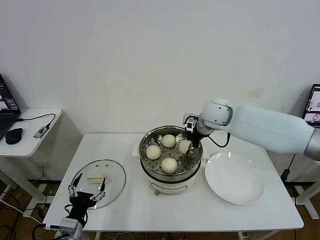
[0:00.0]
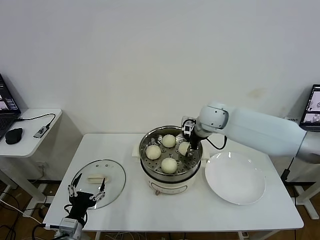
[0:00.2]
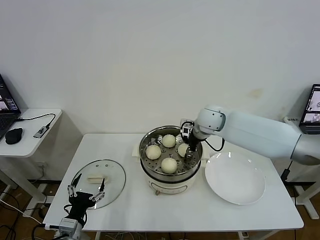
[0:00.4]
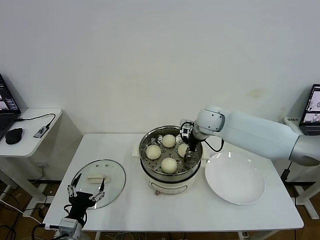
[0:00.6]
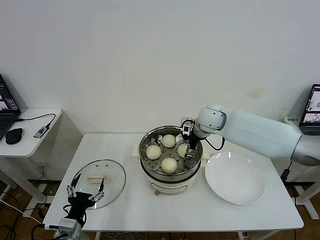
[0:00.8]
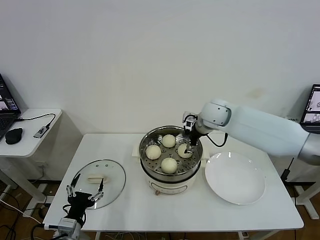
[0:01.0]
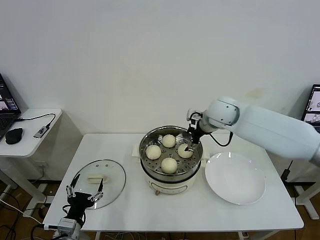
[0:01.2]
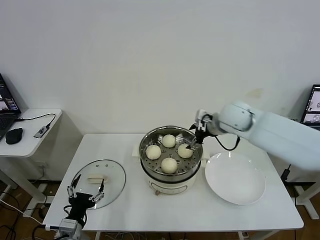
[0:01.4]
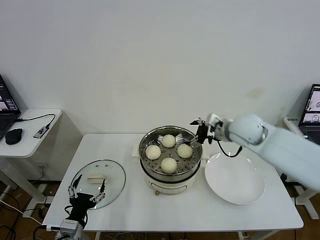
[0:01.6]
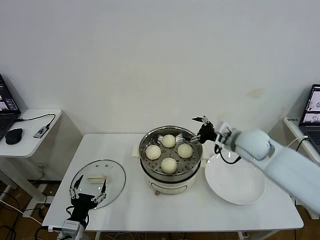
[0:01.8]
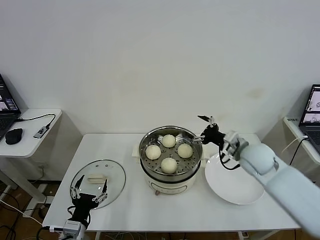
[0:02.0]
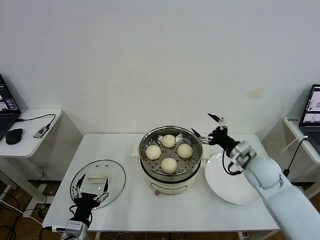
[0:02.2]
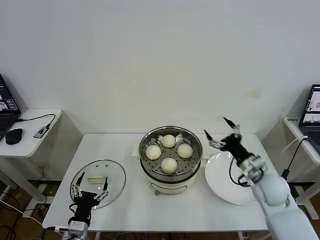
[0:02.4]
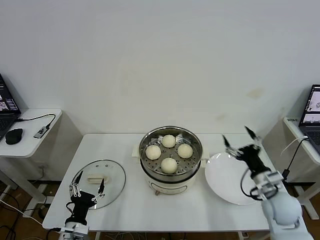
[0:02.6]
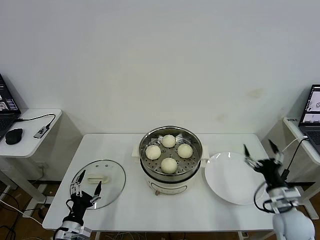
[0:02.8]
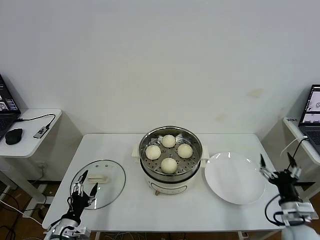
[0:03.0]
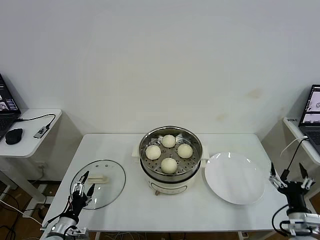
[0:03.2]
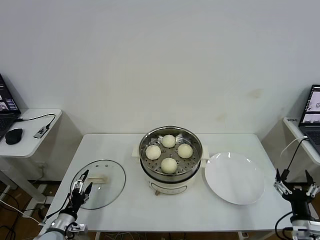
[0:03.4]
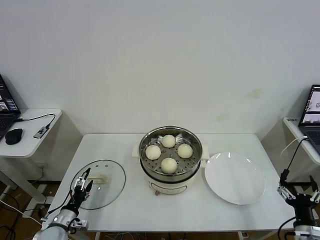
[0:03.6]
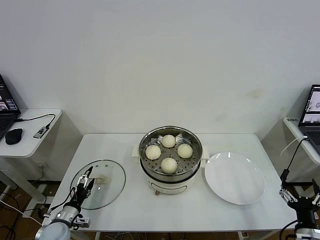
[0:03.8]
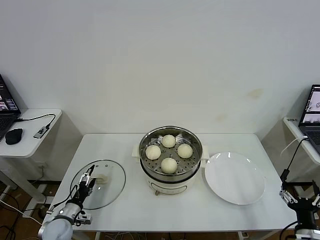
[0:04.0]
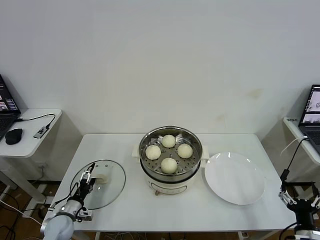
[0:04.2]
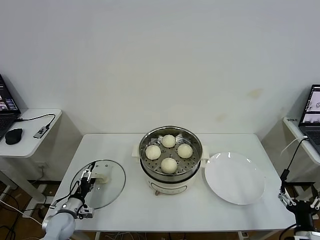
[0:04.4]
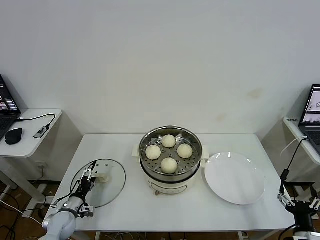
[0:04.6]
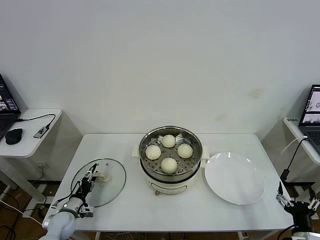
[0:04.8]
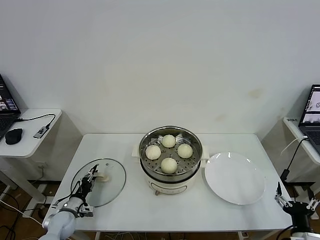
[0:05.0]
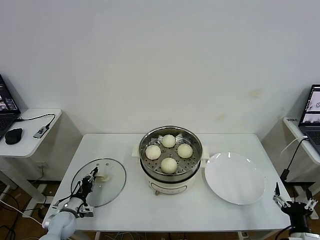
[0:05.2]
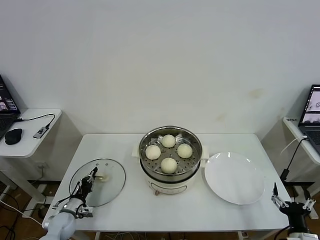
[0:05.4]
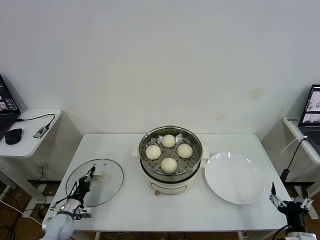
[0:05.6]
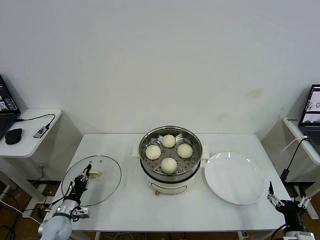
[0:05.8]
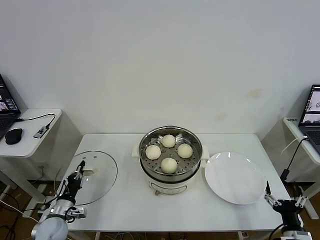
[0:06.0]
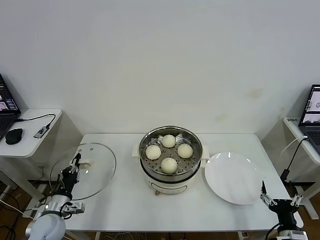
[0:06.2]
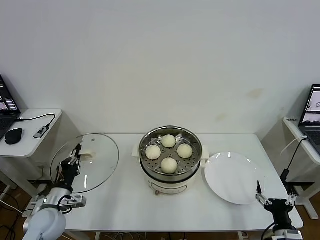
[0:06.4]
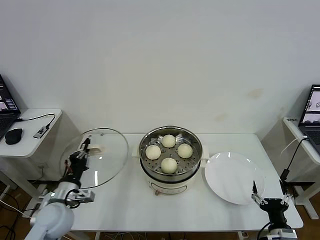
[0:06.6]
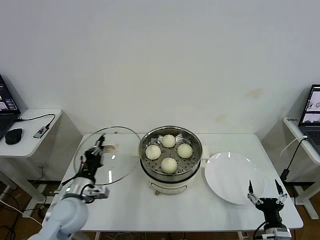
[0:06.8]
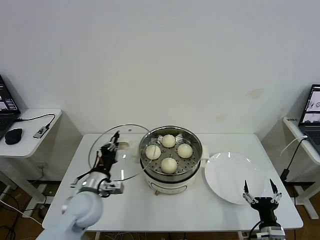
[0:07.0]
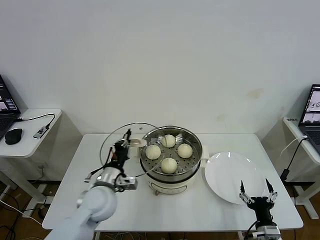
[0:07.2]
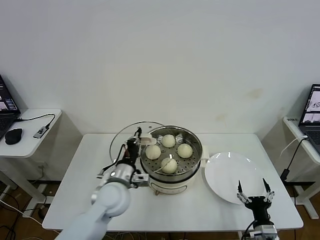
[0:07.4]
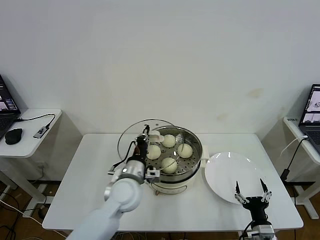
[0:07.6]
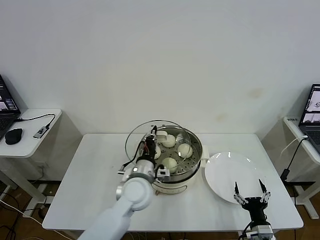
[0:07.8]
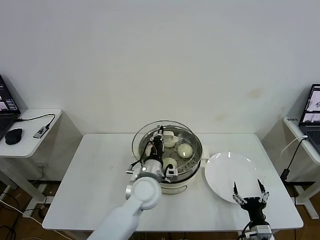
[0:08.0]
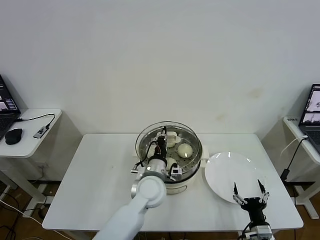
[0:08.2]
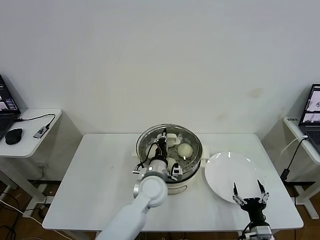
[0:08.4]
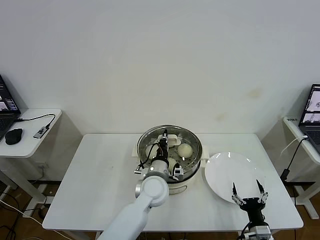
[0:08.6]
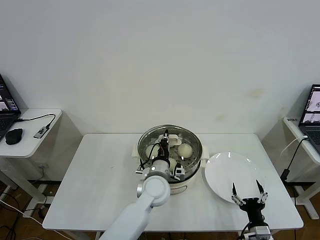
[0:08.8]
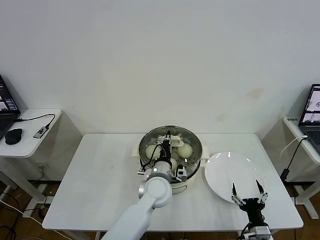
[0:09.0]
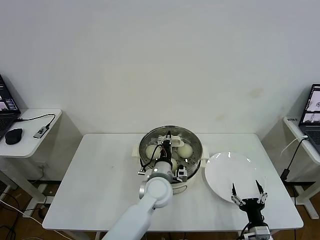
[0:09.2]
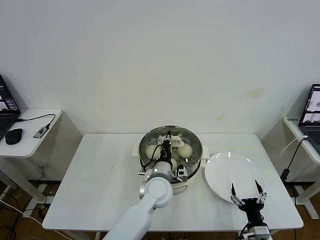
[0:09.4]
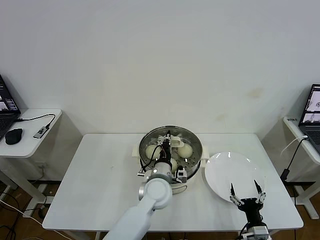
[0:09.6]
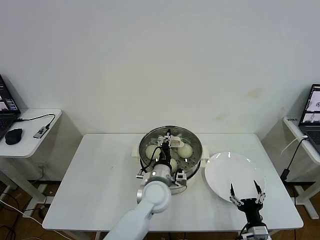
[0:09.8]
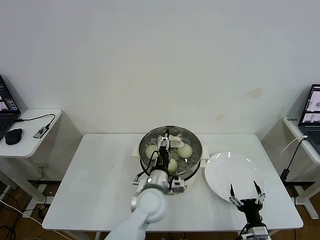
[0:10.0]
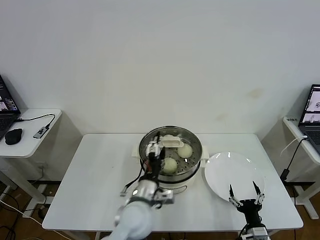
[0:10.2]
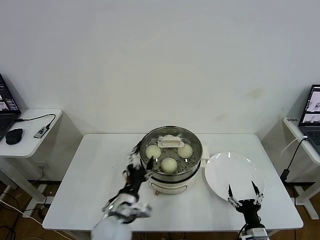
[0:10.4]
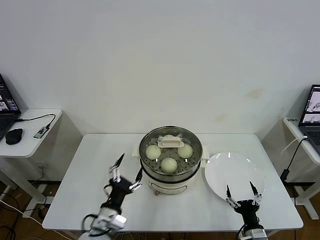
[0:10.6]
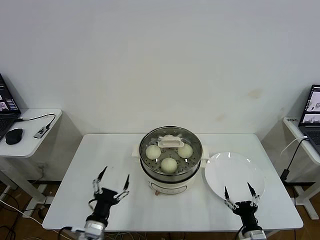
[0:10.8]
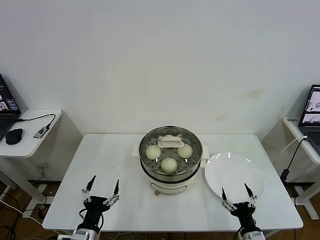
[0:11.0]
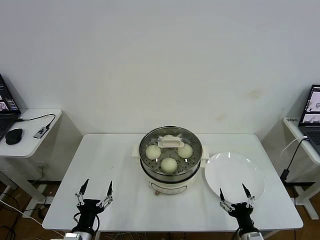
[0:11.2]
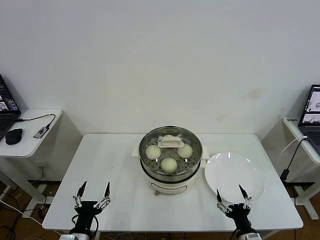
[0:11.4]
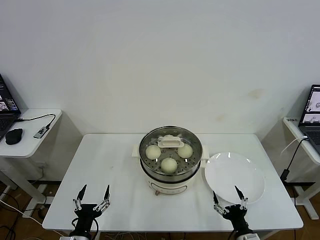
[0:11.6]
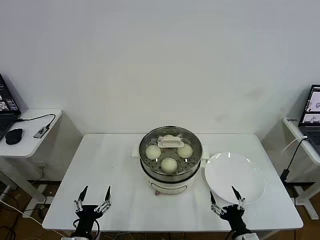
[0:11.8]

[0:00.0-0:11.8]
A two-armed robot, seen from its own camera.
Task of the whole recording: take steamed baozi put them in steamer then cover it.
Step, 0:01.2 to 0:05.4: Grasp the pot lid with left gripper.
Step, 0:05.6 to 0:09.8: Place the pot lid on the steamer with left gripper.
0:00.0 to 0:01.4: The right gripper ends up approximately 5 cm from where it was, and opens.
0:01.4 to 0:03.0: The left gripper moves downward and to the left, some 10 cm, while the right gripper is displaced backward, downward and to the right by approximately 40 cm.
0:03.0 to 0:04.4: The left gripper heads forward, covering about 10 cm, while the right gripper heads backward, covering about 10 cm.
0:04.4 to 0:06.0: The left gripper closes.
0:06.0 to 0:07.4: The right gripper heads to the left, covering about 5 cm; the left gripper is displaced to the right and upward by approximately 30 cm.
0:07.4 to 0:08.8: The left gripper is displaced to the right by roughly 15 cm.
0:08.8 to 0:10.4: The left gripper moves backward and to the left, approximately 15 cm, and opens up.
0:10.4 to 0:11.8: The left gripper shifts roughly 20 cm to the left, downward and backward.
